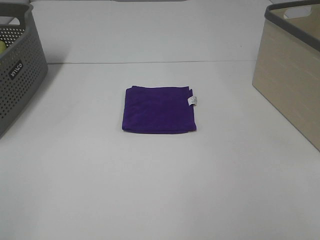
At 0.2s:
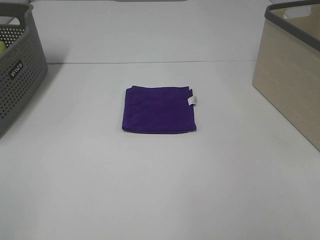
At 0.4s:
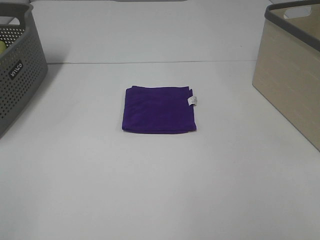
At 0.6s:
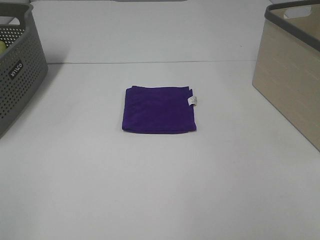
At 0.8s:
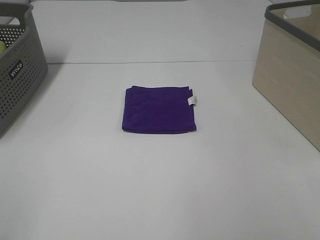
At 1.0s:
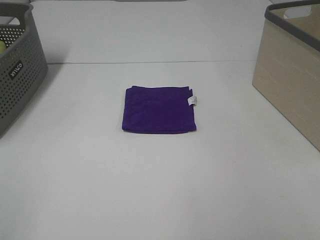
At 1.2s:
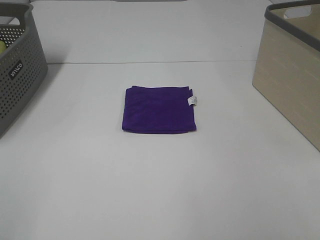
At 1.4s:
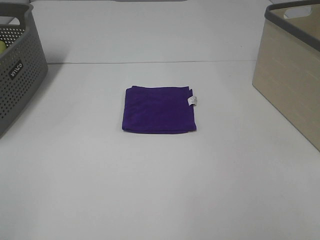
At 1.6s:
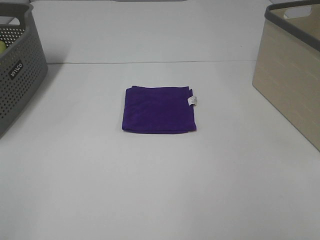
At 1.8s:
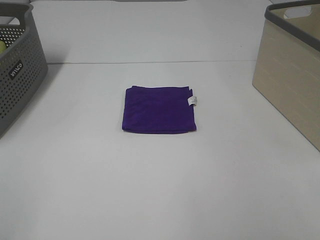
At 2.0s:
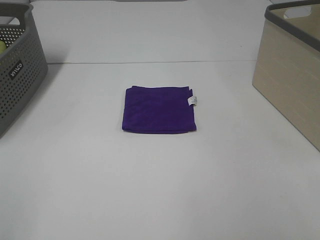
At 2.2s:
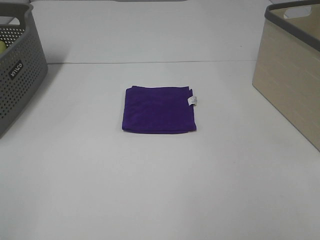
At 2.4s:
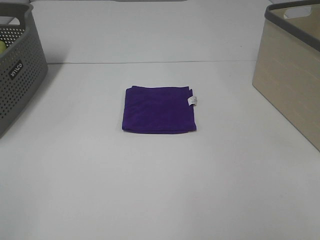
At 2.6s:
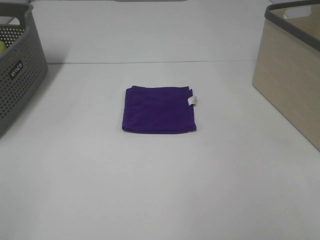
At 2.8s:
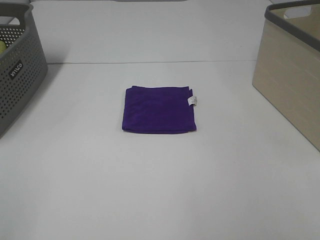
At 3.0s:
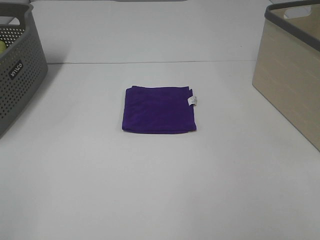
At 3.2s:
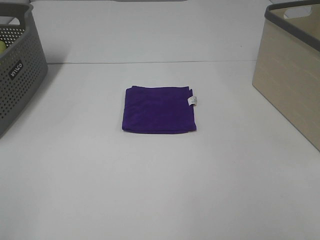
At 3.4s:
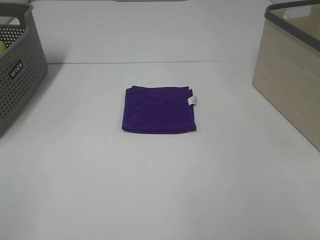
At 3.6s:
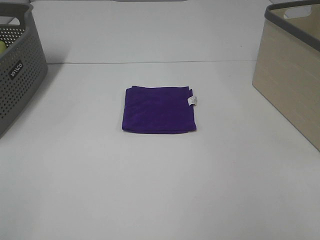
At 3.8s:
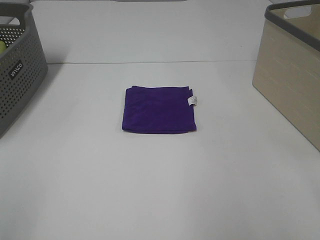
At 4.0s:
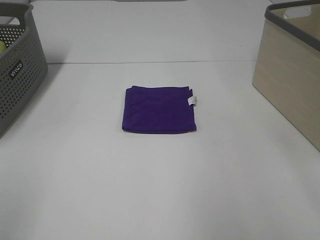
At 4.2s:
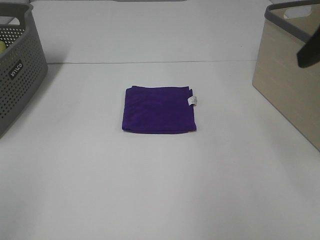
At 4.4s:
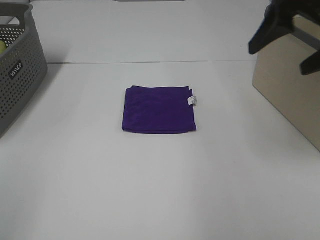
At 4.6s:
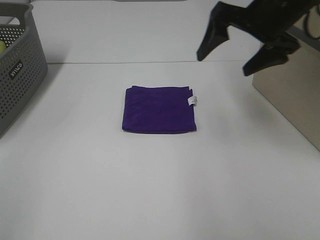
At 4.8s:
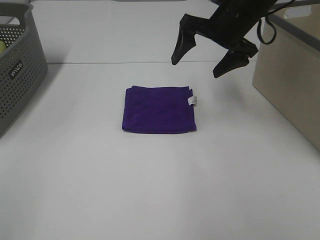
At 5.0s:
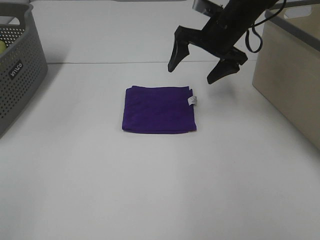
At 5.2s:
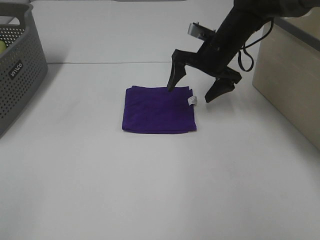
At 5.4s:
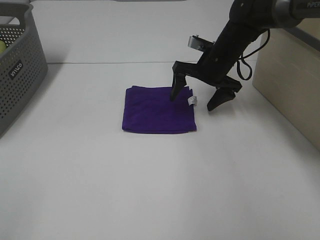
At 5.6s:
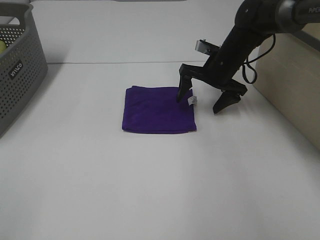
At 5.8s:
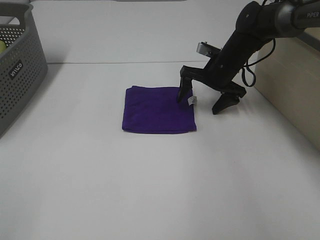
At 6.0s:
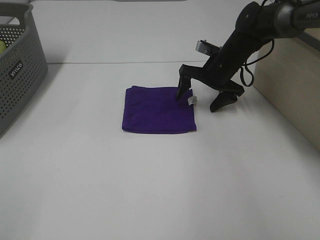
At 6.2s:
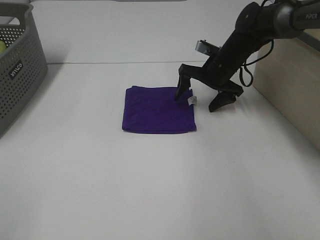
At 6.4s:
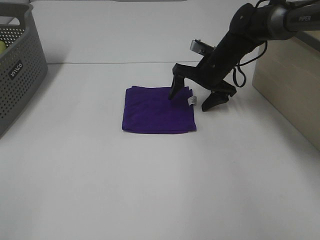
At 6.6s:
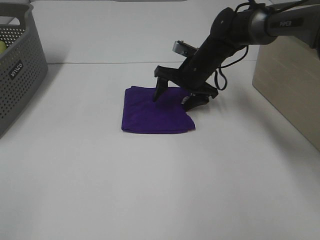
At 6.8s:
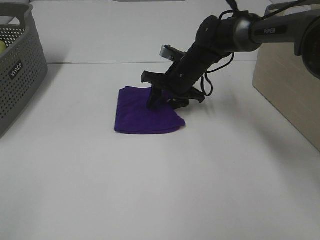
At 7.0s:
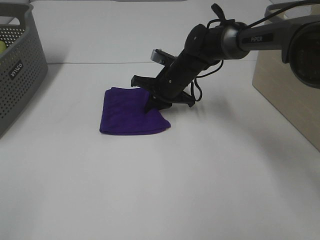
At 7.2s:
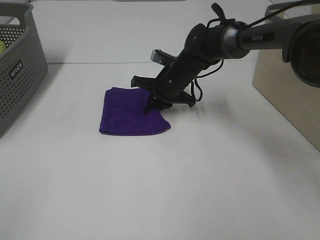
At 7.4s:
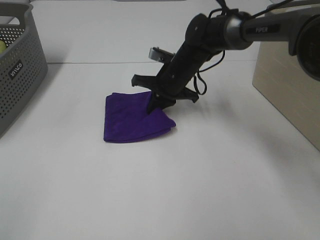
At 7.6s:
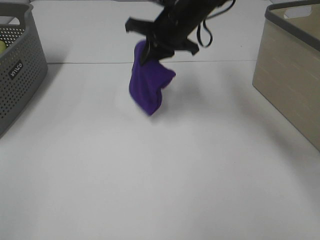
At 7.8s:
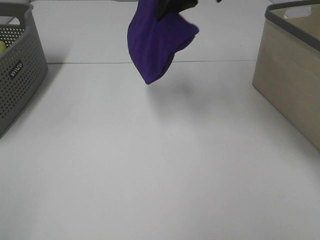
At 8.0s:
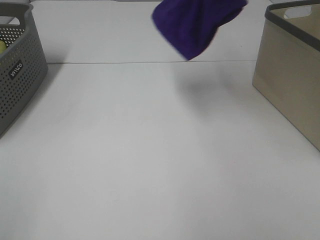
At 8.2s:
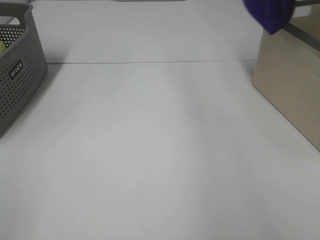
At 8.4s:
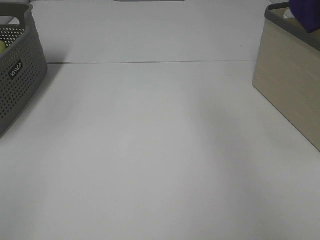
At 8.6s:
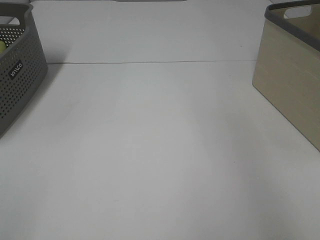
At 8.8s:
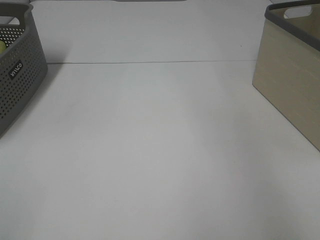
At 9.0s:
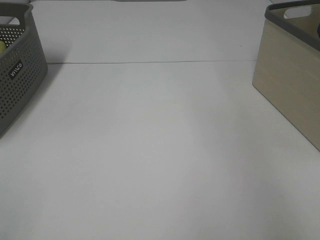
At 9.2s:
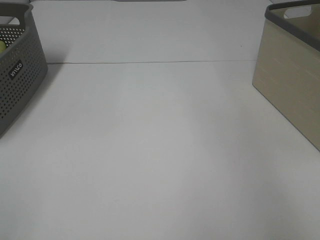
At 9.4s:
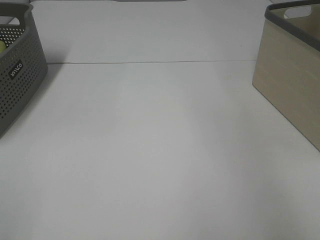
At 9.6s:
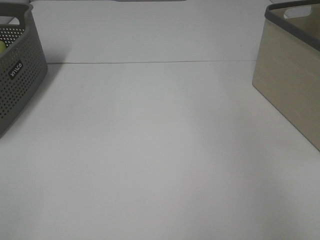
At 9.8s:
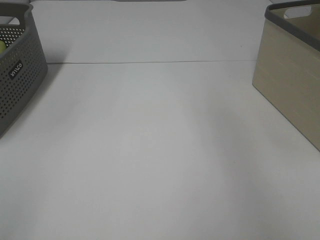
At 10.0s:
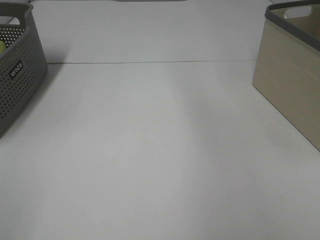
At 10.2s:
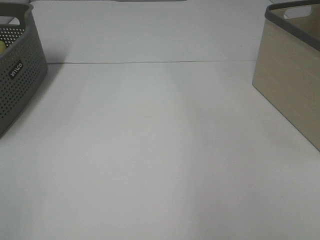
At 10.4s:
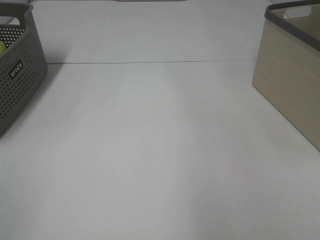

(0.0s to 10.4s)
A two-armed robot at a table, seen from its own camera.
Step, 0.0s - 7.0s: Right hand: grab the folded purple towel.
Step, 7.2s - 9.2s: Right hand: place the purple towel in right basket.
0.0s - 3.0s: The two grippers keep their place.
3.0s - 4.4s: The right gripper travels forward by some 30 cm.
4.4s - 6.0s: The right gripper travels downward and forward by about 25 cm.
6.0s - 7.4s: The right gripper moves to the left, approximately 10 cm, and closes.
7.4s - 9.0s: The right gripper goes about 40 cm to the right and upward.

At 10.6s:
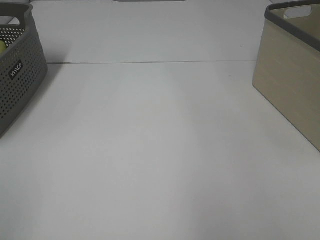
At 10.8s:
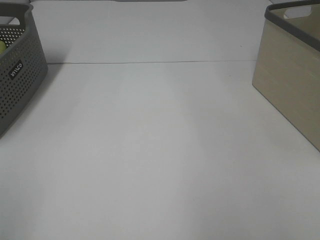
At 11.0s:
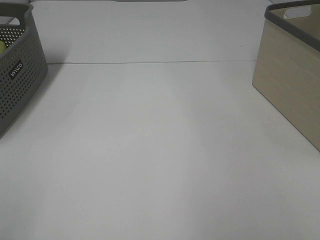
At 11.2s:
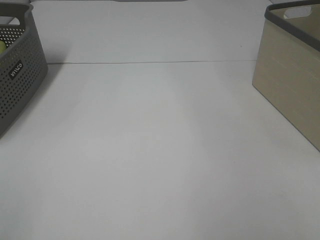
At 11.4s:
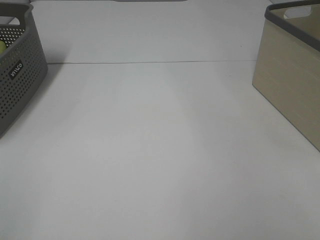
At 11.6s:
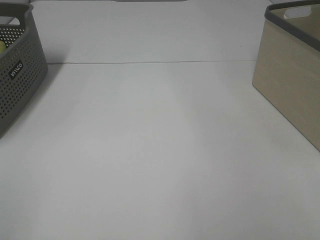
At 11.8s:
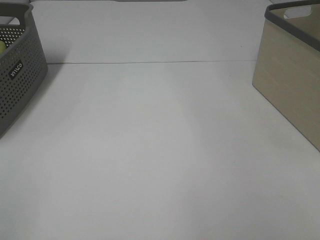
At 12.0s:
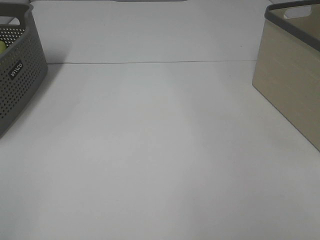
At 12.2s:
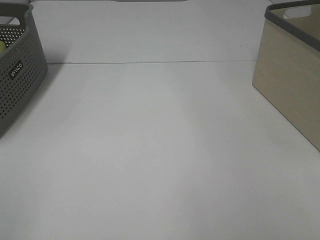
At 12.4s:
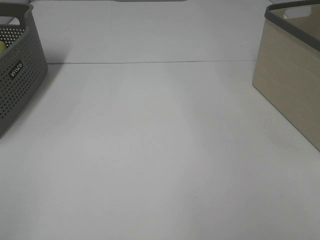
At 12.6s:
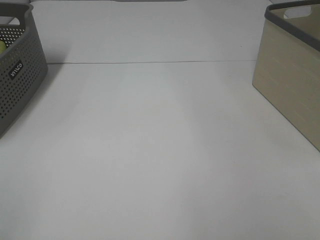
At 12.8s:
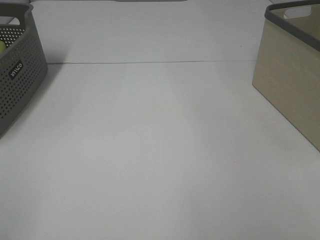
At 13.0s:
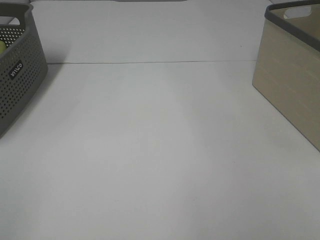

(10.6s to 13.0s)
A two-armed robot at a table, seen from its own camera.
11.8s - 13.0s: Both grippers stay about where they are.

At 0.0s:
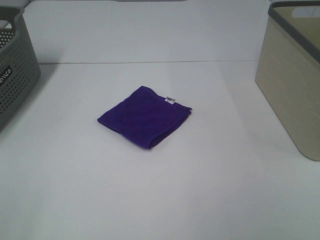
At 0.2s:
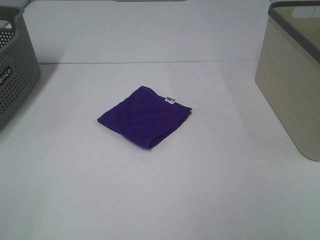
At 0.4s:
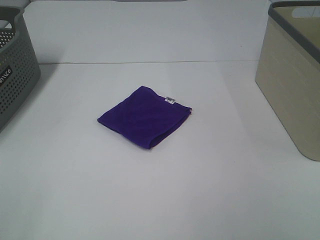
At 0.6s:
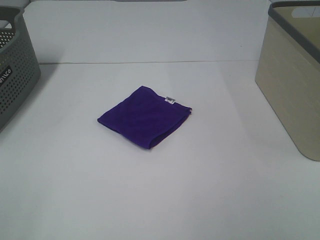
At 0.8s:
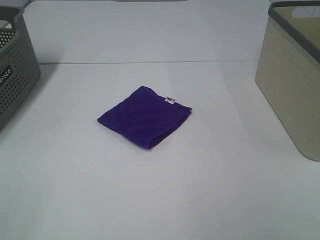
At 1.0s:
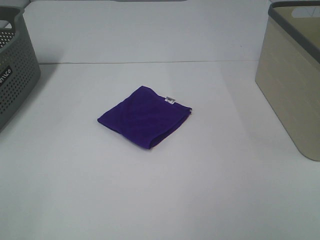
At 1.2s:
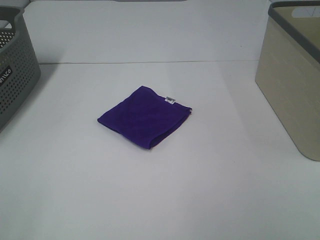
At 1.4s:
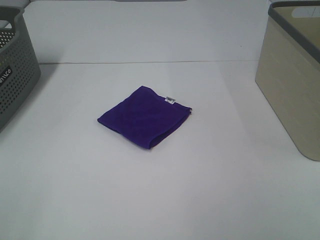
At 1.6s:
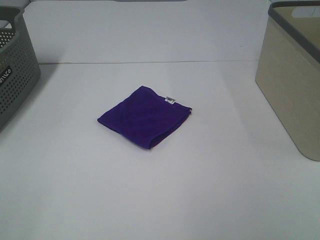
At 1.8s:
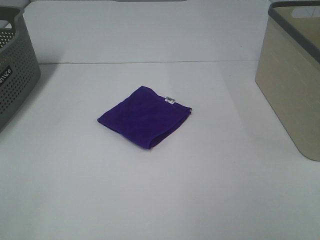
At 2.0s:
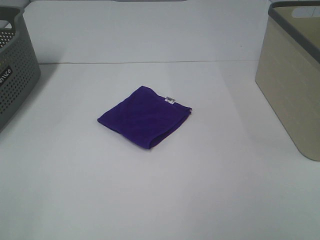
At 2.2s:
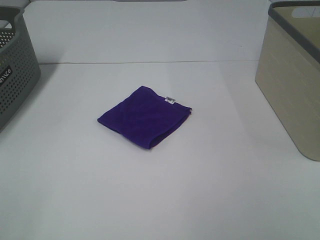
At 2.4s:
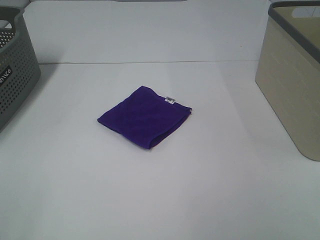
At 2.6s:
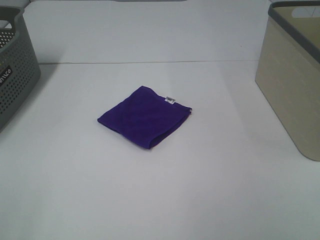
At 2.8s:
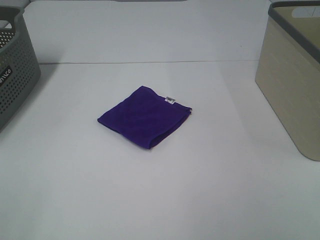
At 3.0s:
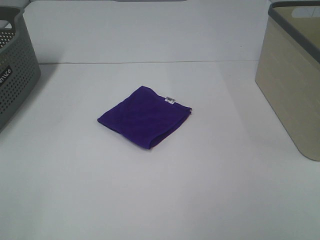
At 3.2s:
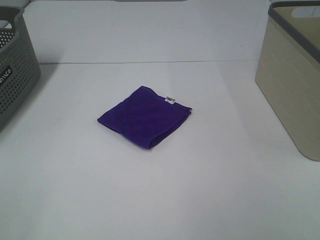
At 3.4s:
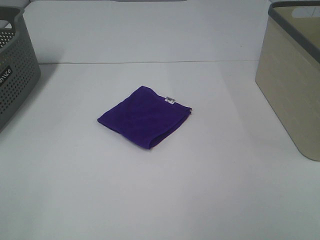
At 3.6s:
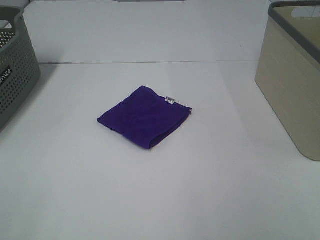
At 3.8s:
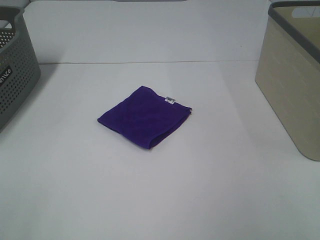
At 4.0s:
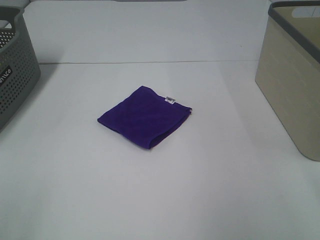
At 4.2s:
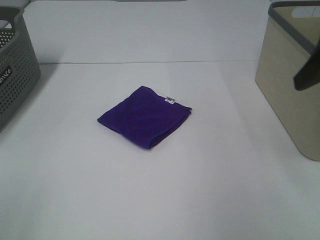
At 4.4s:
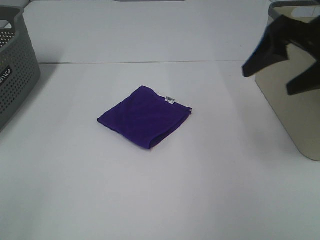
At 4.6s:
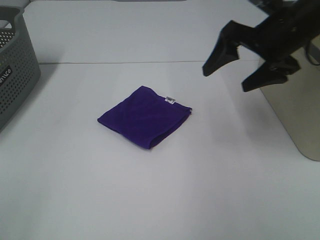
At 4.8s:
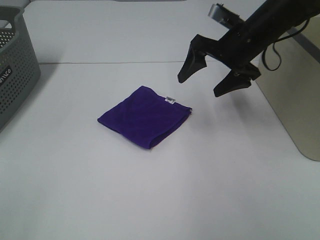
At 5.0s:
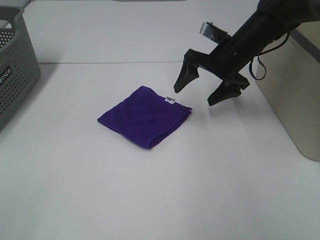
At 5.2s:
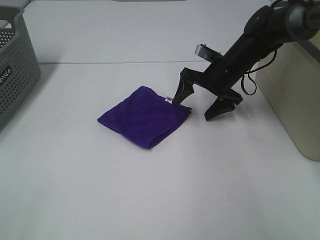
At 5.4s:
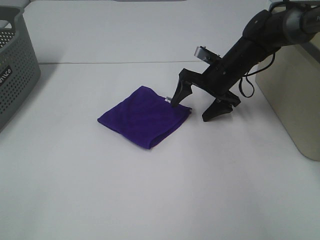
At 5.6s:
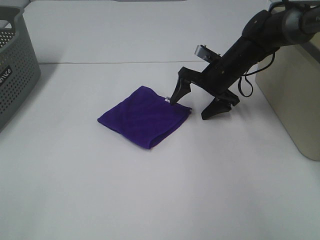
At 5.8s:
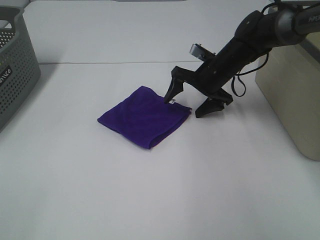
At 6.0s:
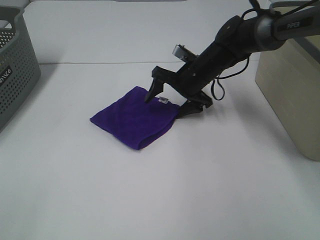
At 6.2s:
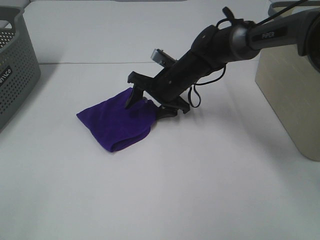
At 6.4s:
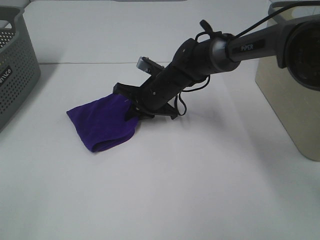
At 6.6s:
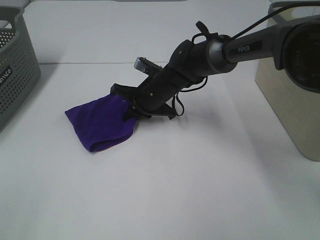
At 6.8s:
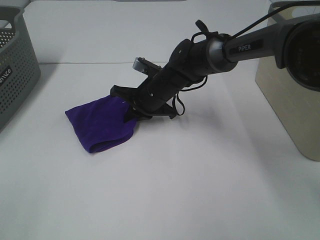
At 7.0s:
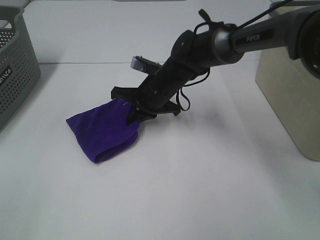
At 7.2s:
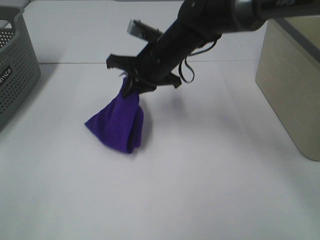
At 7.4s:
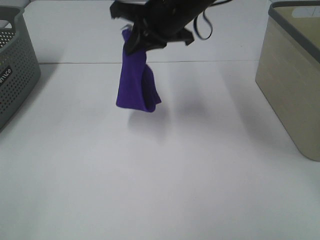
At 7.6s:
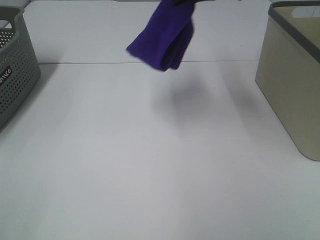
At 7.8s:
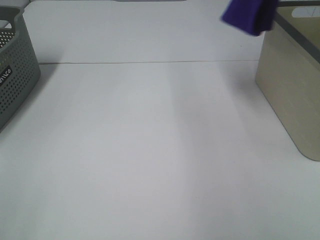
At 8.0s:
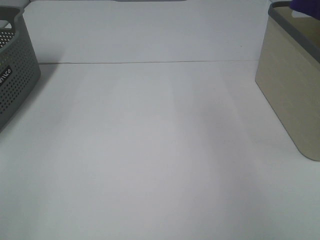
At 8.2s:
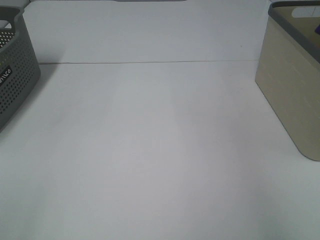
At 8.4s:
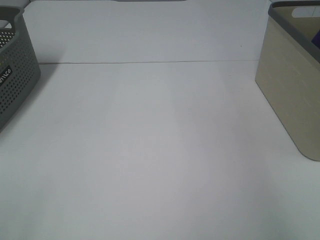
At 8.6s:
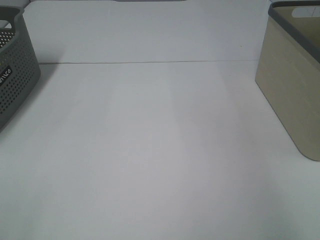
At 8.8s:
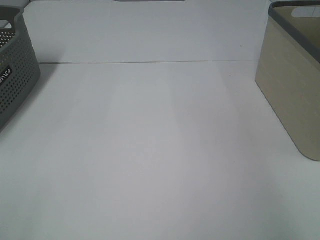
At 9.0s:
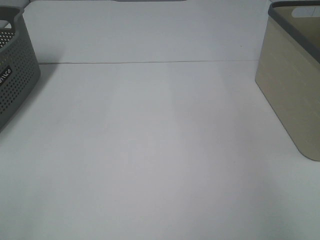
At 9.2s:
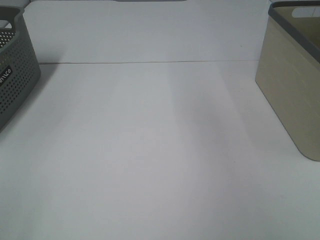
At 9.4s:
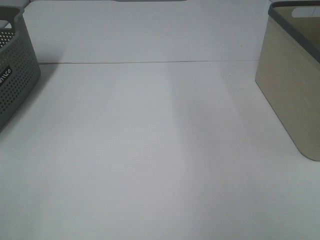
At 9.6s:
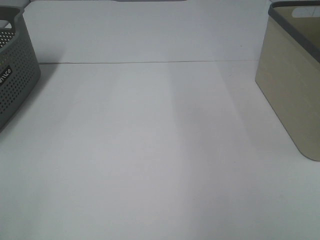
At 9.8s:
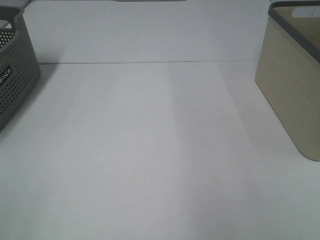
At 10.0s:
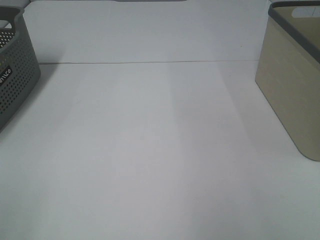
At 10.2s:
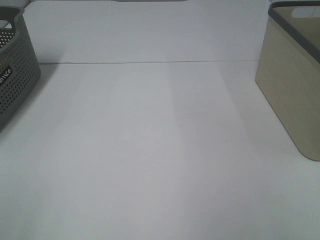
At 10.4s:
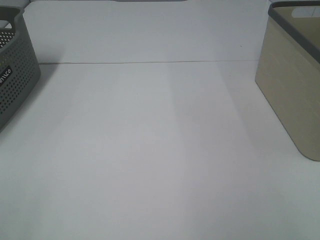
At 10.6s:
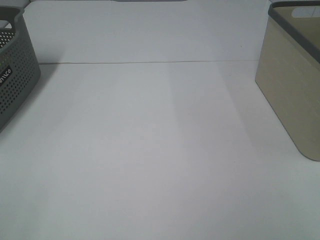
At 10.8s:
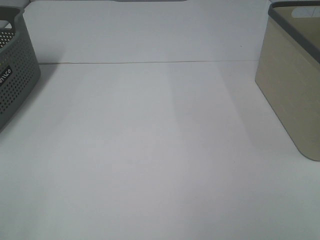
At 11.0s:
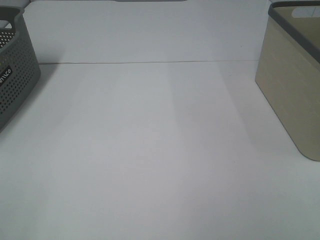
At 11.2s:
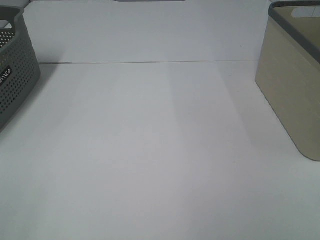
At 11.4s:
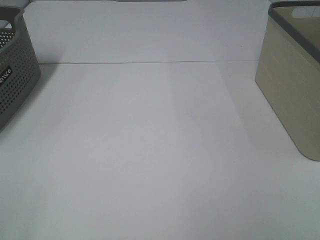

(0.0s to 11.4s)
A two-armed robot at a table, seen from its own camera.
Step, 0.0s - 6.4s: Right hand: grab the folded purple towel.
Step, 6.6s - 8.8s: Right hand: place the purple towel in right basket.
0.0s - 2.8s: Both grippers stay put.
2.8s - 4.2s: The right gripper moves forward, approximately 25 cm.
4.2s - 5.6s: The right gripper goes approximately 30 cm forward, downward and to the left.
5.6s - 7.2s: The right gripper heads to the left, upward and backward, covering approximately 15 cm, and closes.
7.2s - 8.6s: The right gripper is displaced to the right and upward by some 40 cm, and opens.
